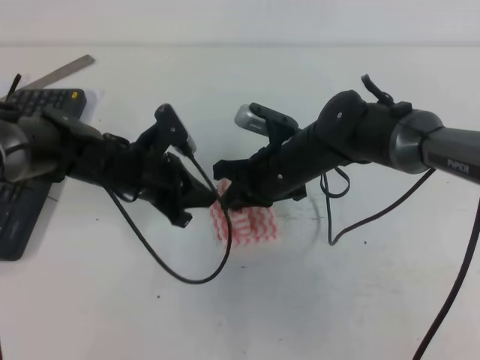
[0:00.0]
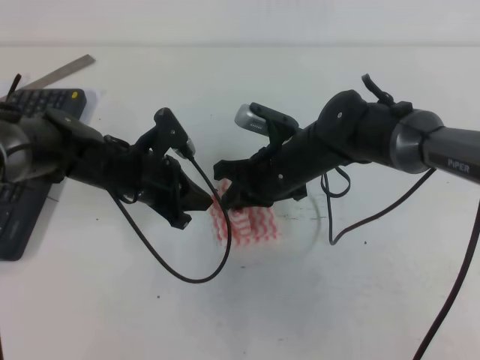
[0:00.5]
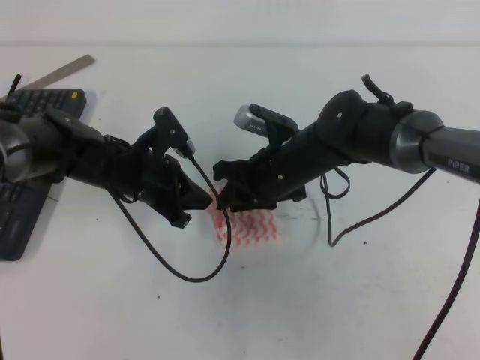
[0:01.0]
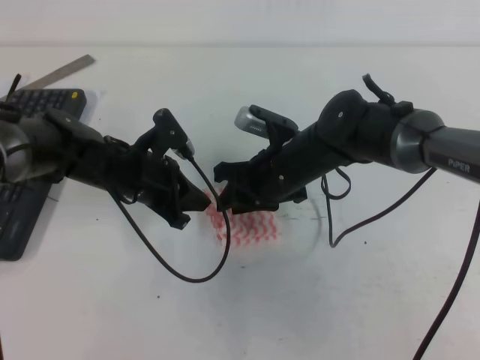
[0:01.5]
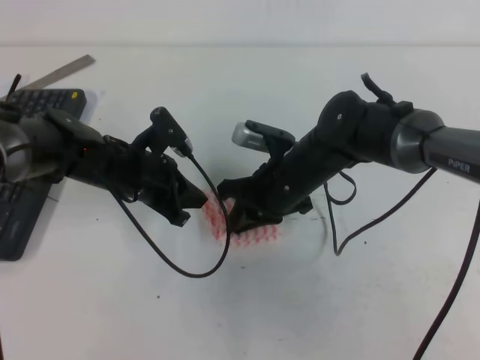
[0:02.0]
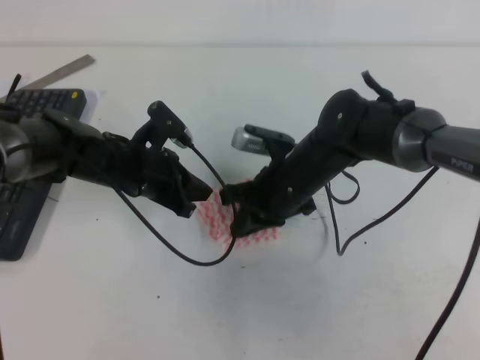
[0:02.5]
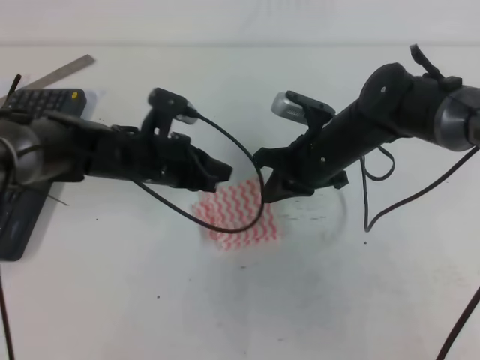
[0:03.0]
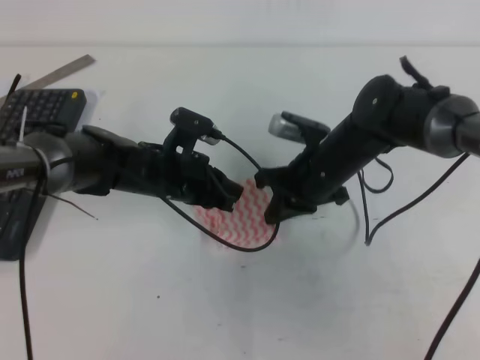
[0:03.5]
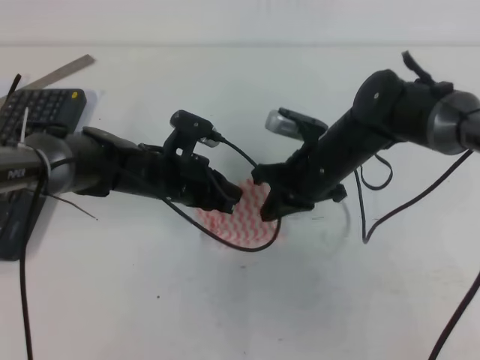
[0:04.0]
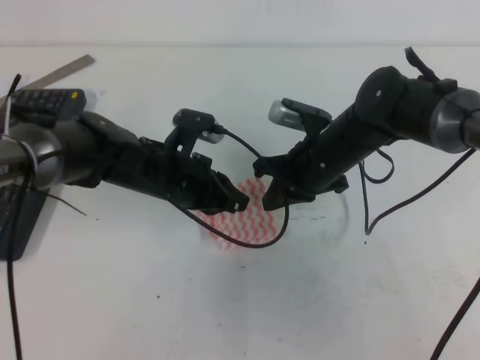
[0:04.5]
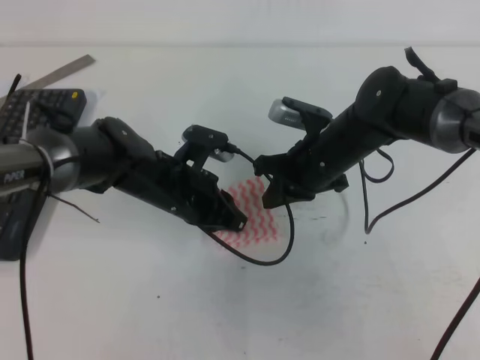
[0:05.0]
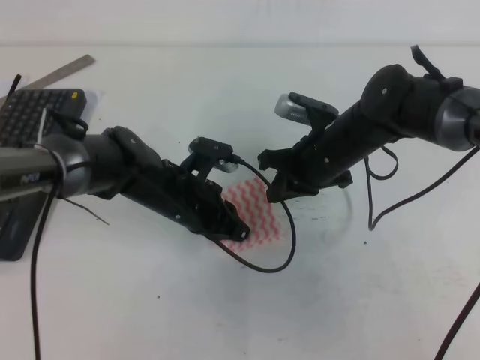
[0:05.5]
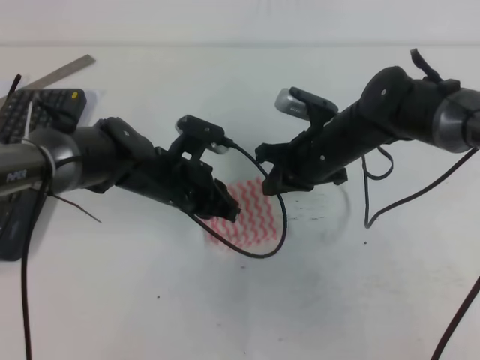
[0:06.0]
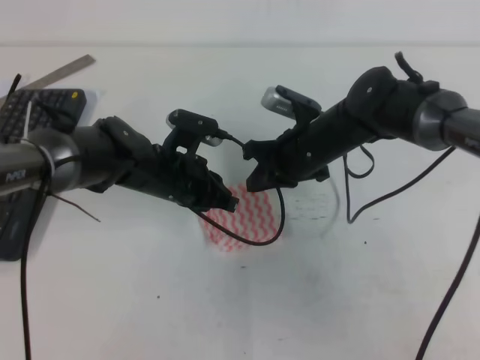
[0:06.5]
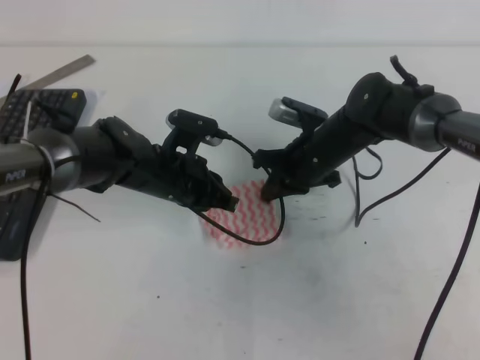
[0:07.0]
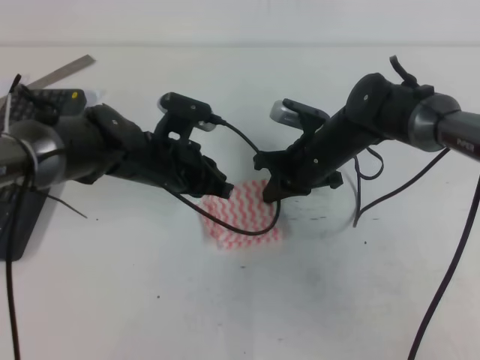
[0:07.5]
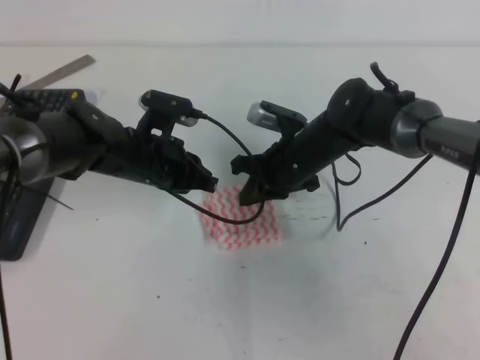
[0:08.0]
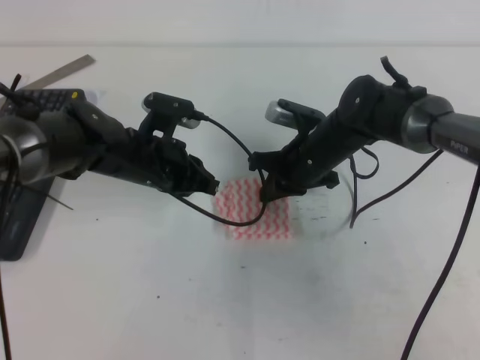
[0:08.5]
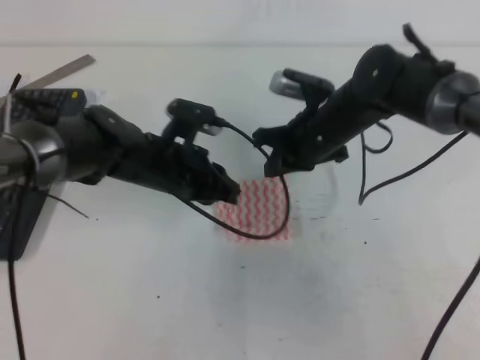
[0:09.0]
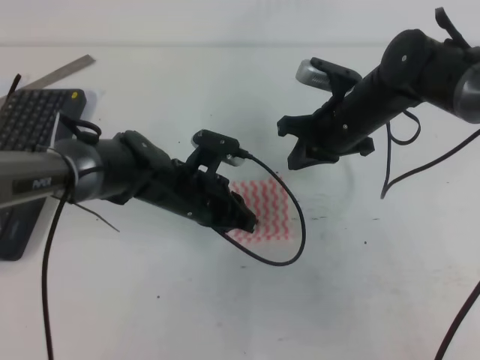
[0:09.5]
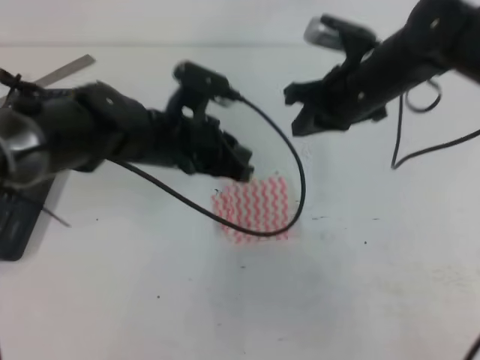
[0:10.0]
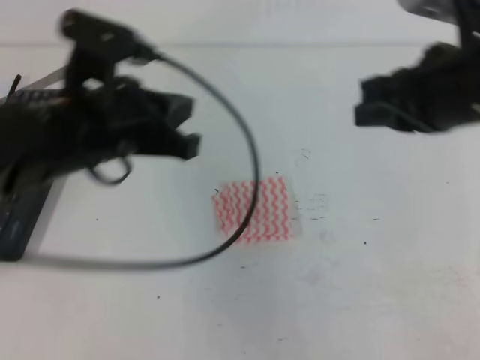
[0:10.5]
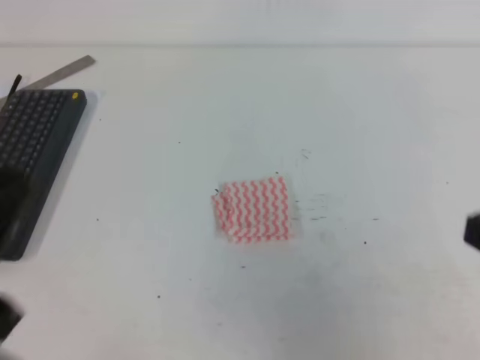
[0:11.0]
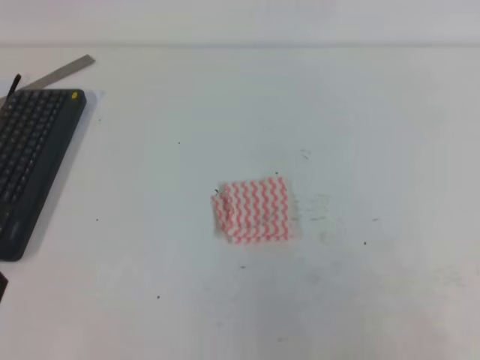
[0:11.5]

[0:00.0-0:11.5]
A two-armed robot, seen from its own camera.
0:00.0 to 0:02.0: The right gripper opens, then closes once more.
0:02.0 to 0:04.0: The grippers stay close to where they were, moving slightly.
0:04.0 to 0:07.5: The grippers stay close to where they were, moving slightly.
0:07.5 to 0:09.5: The right gripper moves upward, about 5 cm.
0:09.5 to 0:11.5: The left gripper shifts some 35 cm backward and to the left, while the right gripper heads backward and to the right, covering roughly 40 cm.
